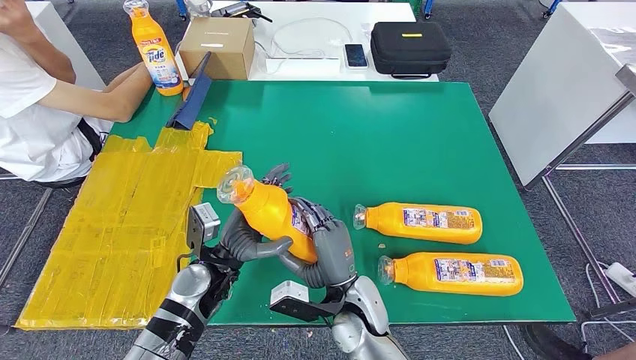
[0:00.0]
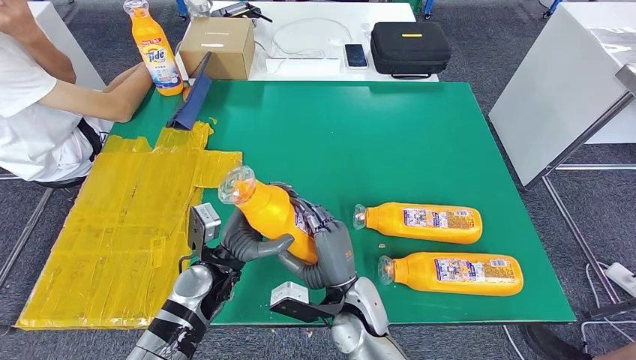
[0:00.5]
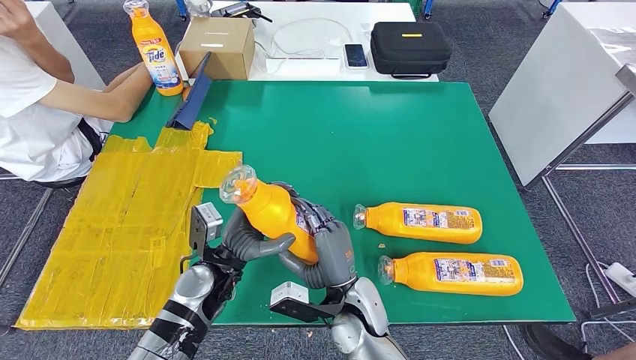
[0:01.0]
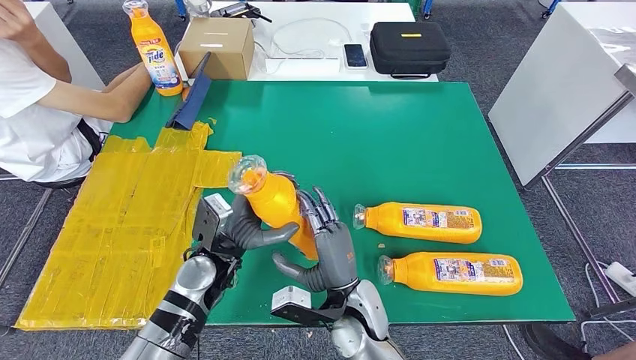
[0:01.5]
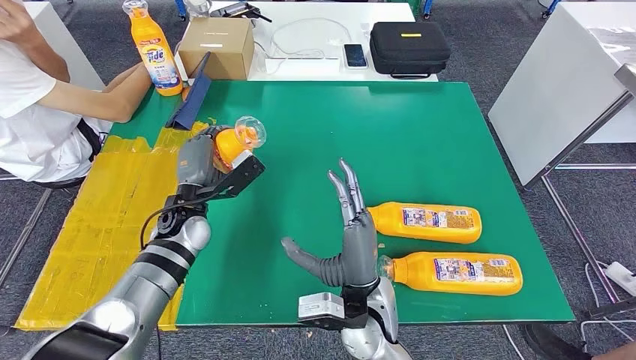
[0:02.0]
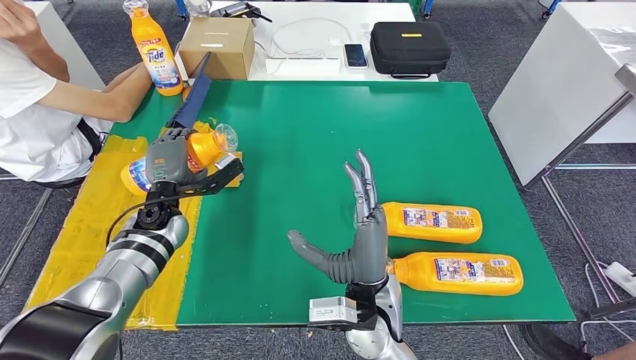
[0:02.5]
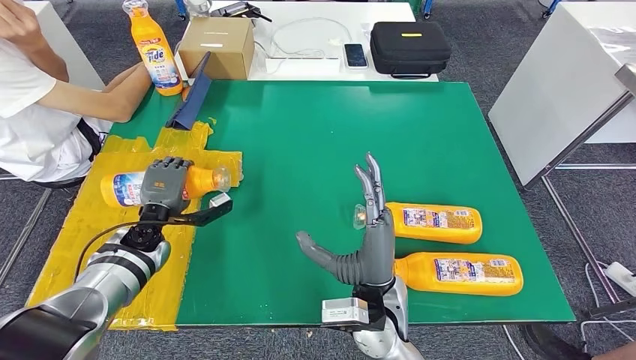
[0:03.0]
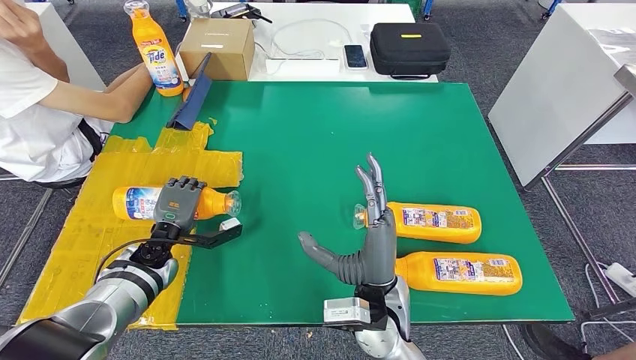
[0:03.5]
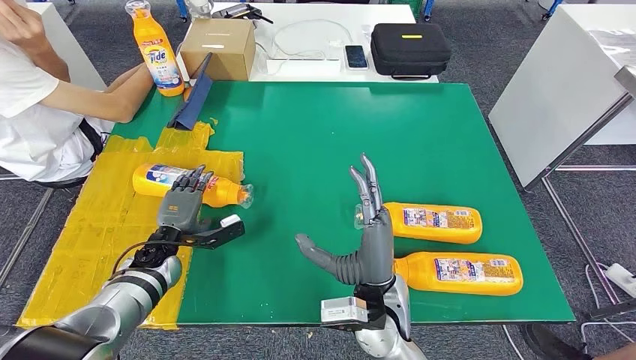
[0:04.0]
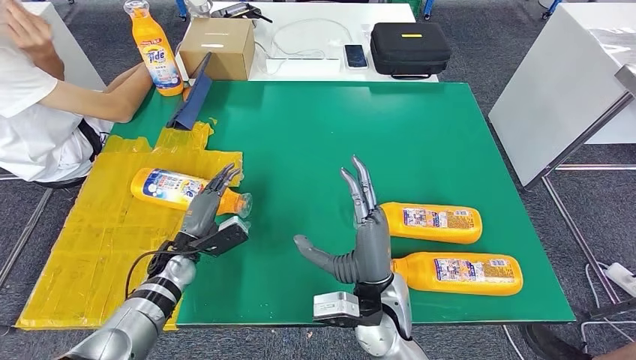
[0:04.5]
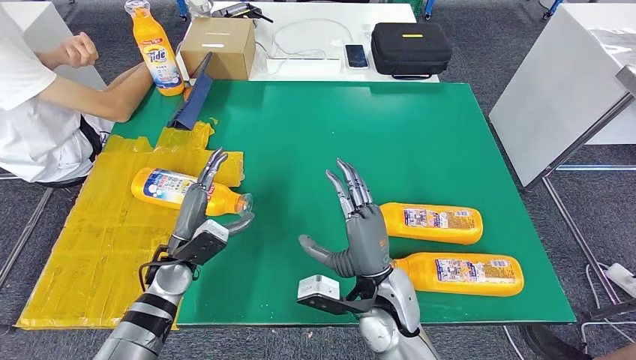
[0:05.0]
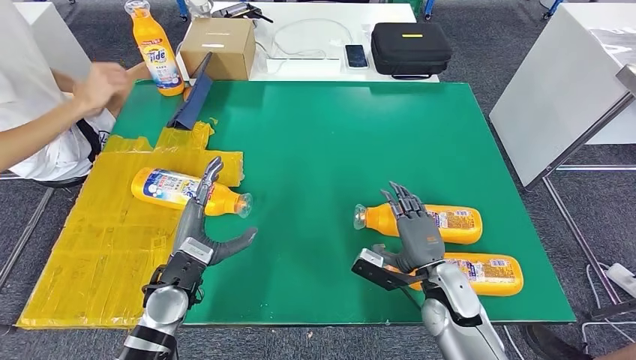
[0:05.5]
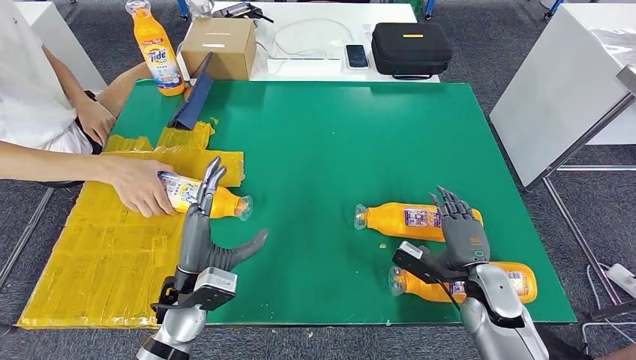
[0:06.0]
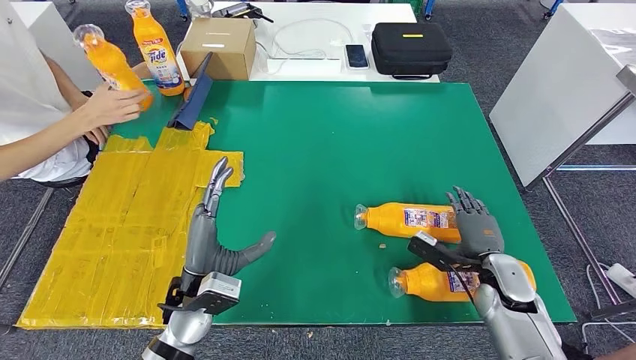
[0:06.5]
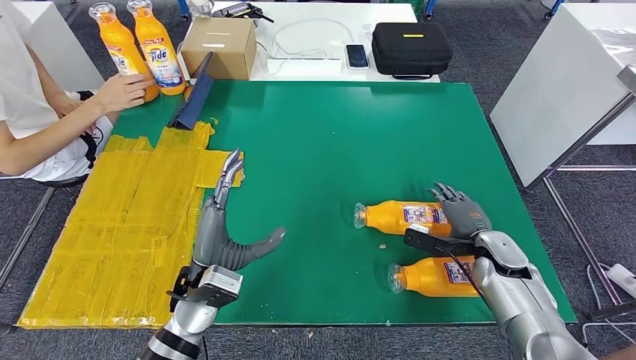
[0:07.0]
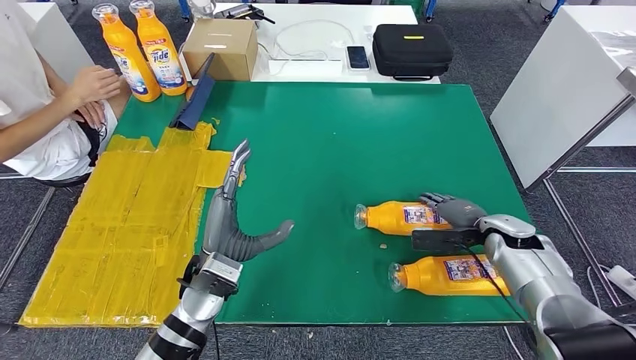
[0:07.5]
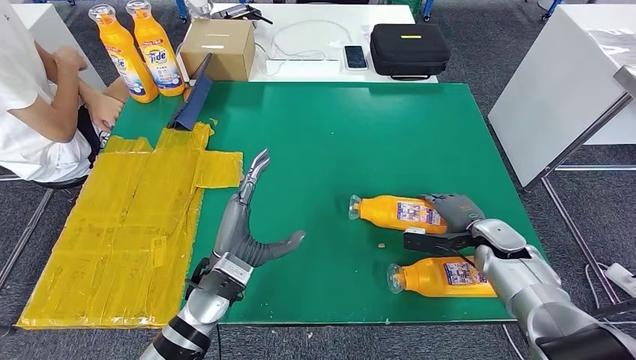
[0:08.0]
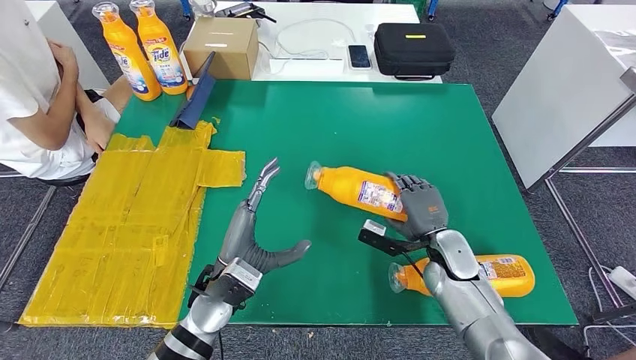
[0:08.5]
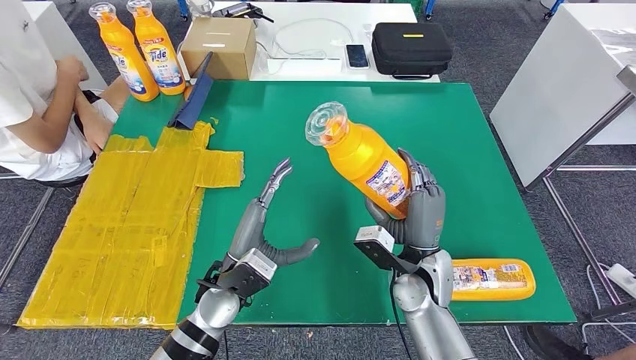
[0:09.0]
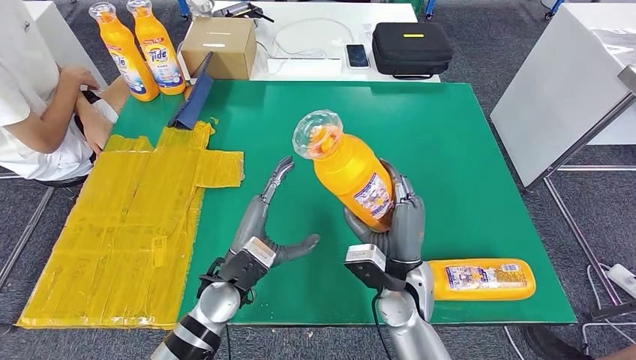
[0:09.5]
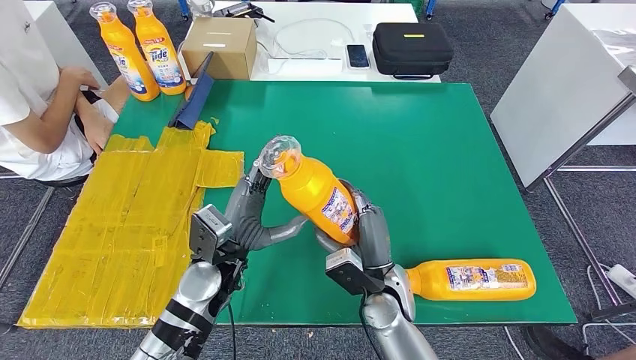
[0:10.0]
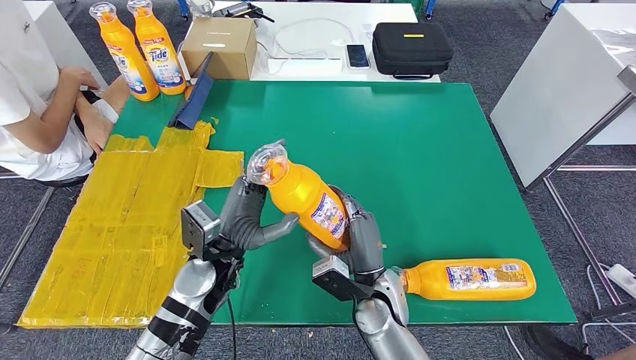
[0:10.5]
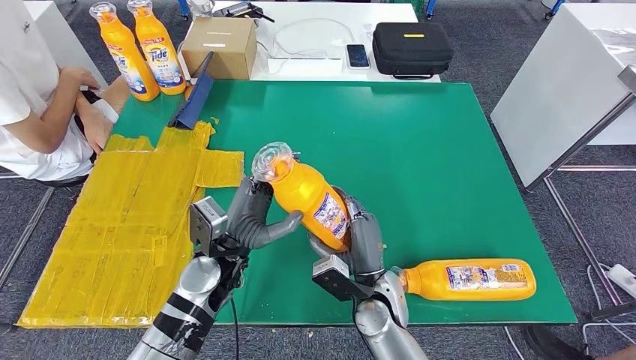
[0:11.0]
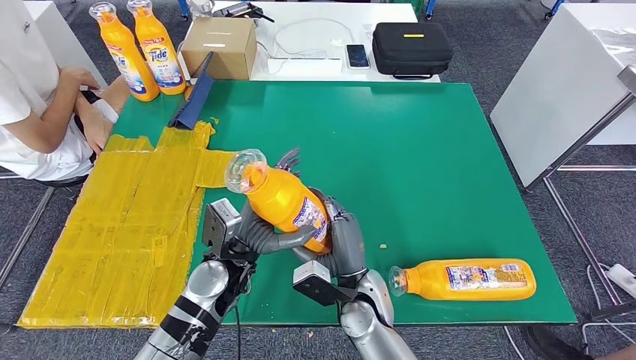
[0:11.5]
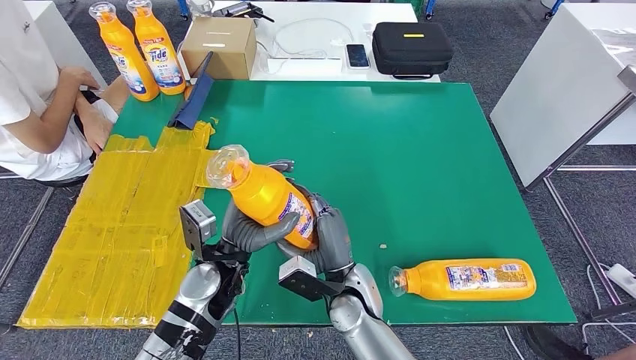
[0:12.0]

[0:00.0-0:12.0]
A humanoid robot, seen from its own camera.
Step, 0:00.0 to 0:06.0: Flip the fast-moving consumer goods bottle to the front side.
Step, 0:07.0 to 0:10.0: Pick up the fast-moving consumer goods bottle from the table.
0:00.0 to 0:02.0: The right hand shifts about 5 cm upward. The left hand is displaced forward and to the left by about 10 cm.
0:02.0 to 0:04.0: The left hand travels downward and to the left by roughly 15 cm.
0:10.0 to 0:12.0: The right hand moves to the left, some 5 cm.

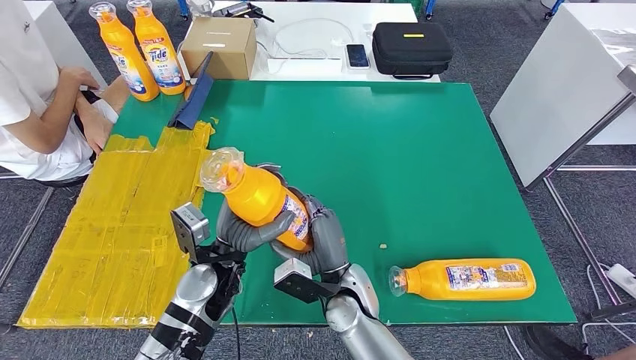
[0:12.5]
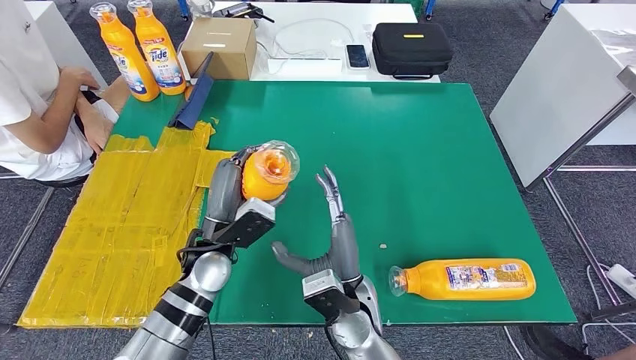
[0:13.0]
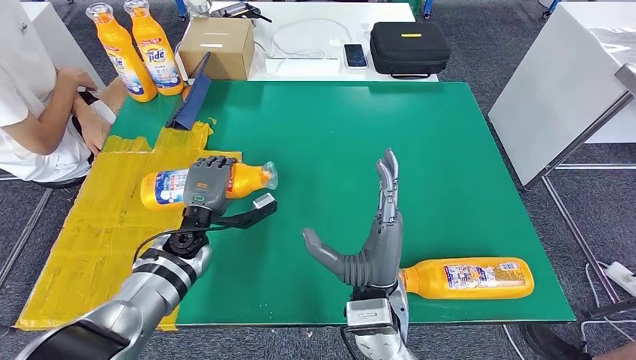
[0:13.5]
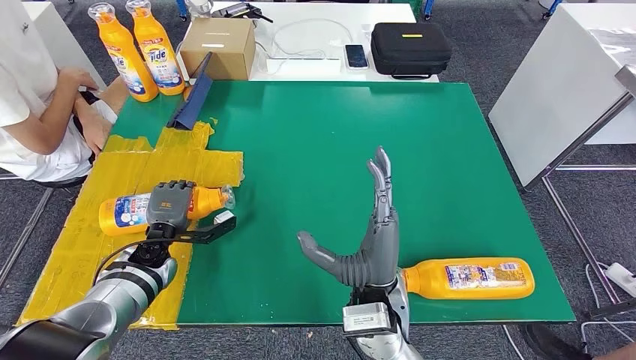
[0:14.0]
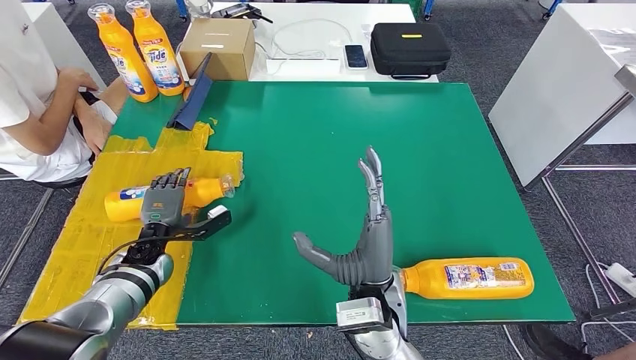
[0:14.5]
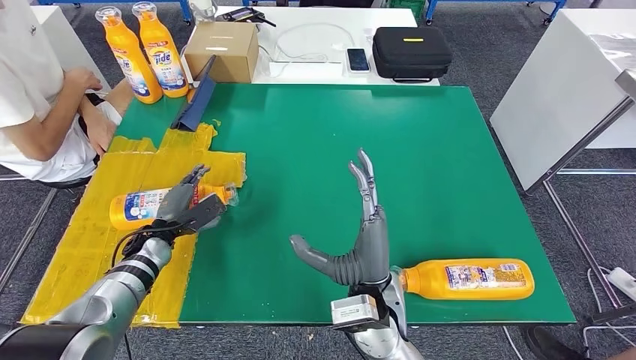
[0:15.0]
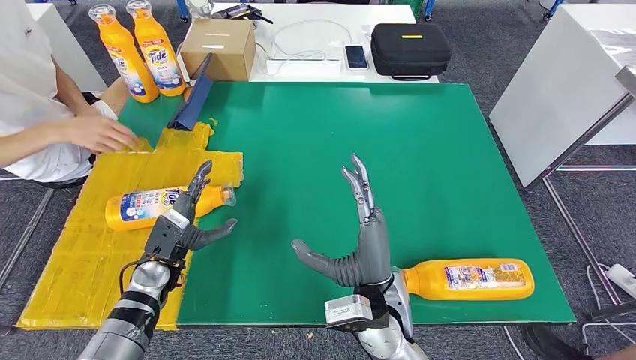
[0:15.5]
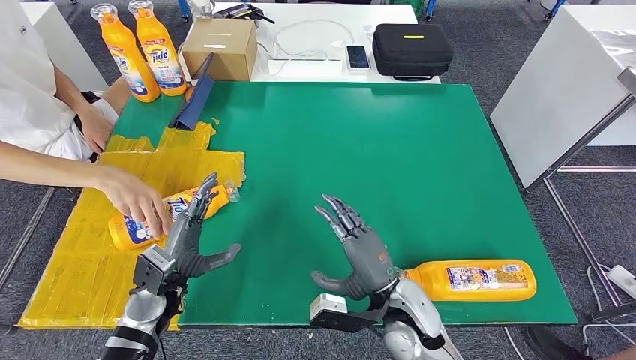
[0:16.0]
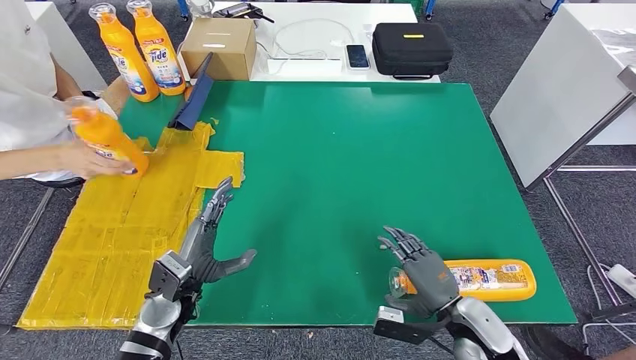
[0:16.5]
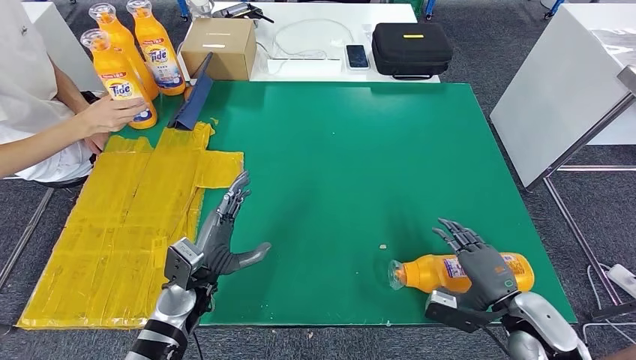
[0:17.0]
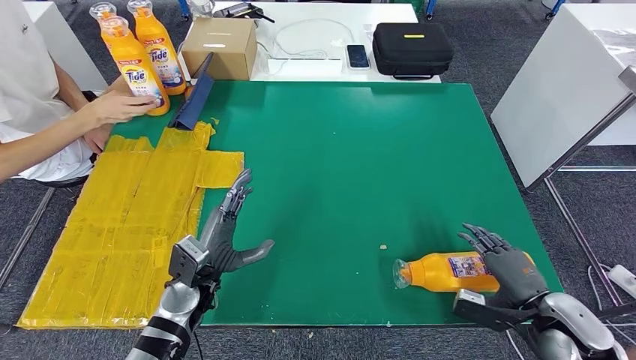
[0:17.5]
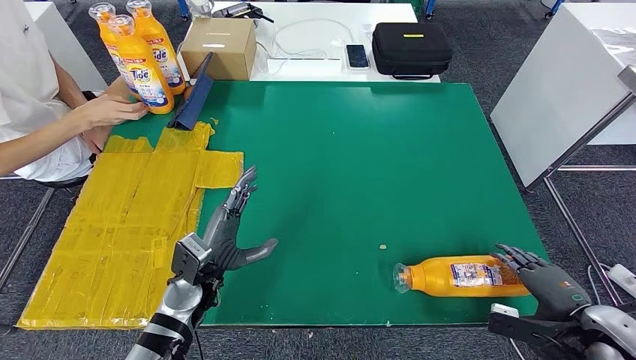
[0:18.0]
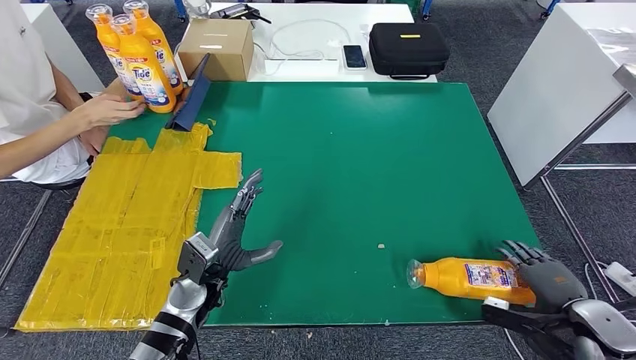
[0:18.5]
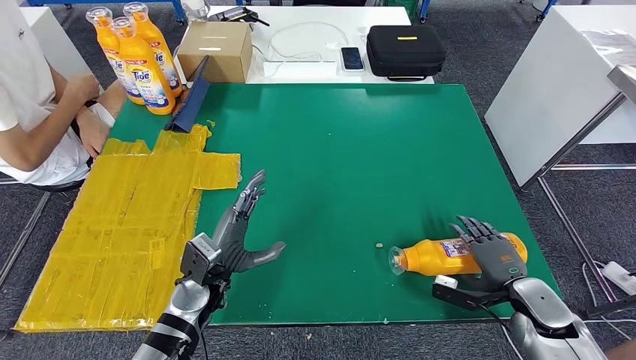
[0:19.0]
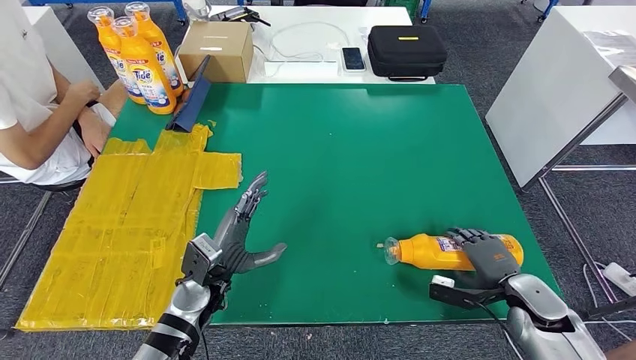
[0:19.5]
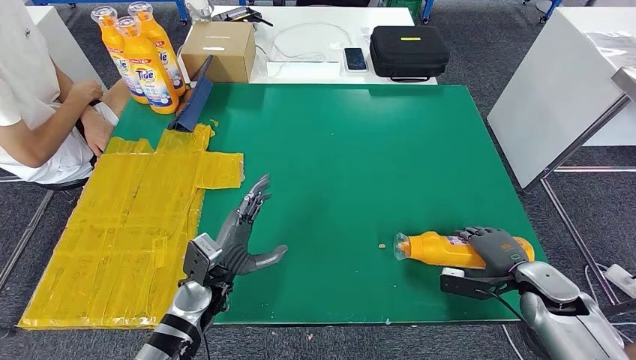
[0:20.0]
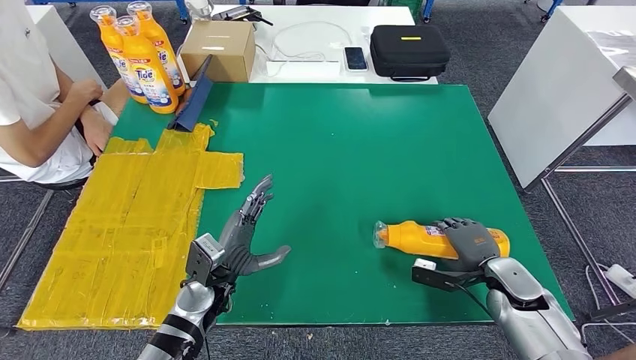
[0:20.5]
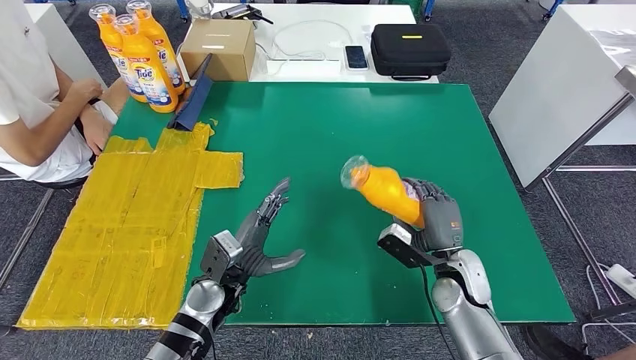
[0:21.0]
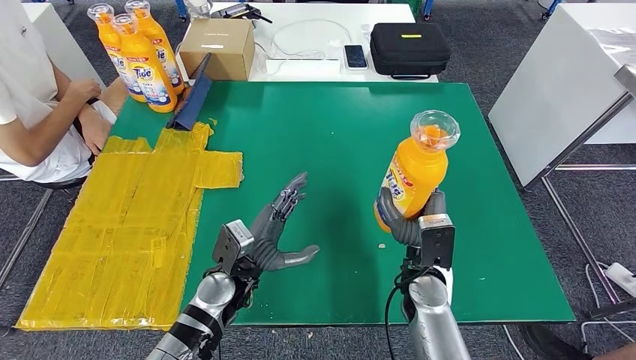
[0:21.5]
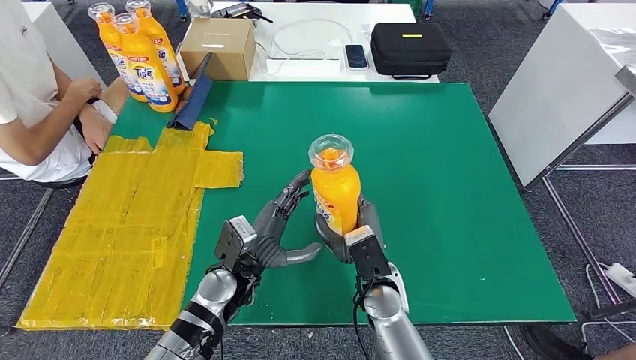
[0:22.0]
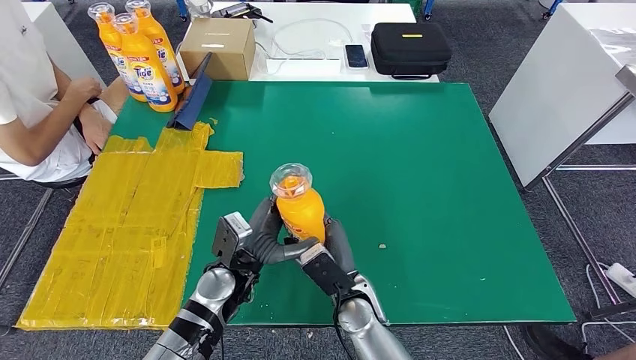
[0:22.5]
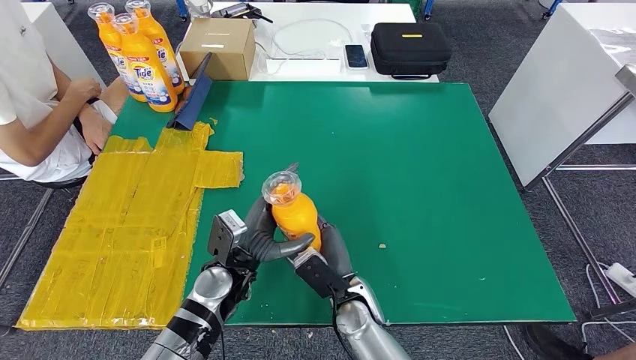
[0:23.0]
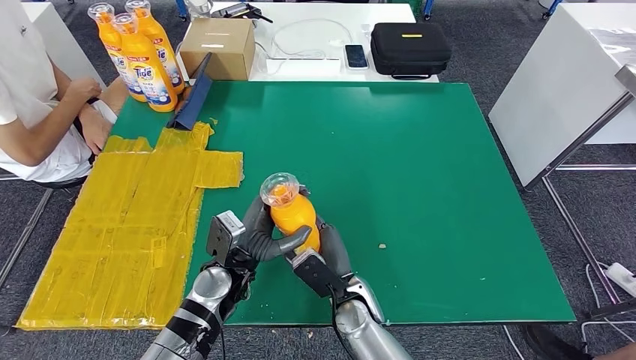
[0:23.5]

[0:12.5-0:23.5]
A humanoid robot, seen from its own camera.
Step, 0:12.5 to 0:17.0: Flip the fast-moving consumer goods bottle to the front side.
Step, 0:18.0 to 0:22.5: Pick up the fast-moving consumer goods bottle from the table.
0:21.5 to 0:23.5: The right hand goes approximately 15 cm to the left and downward.
